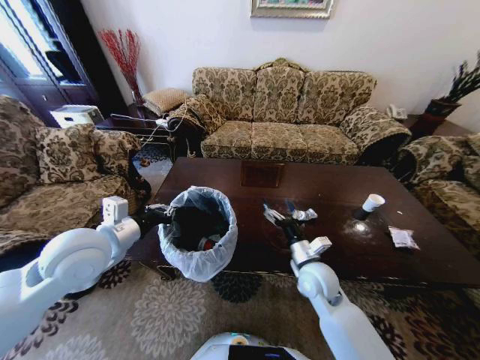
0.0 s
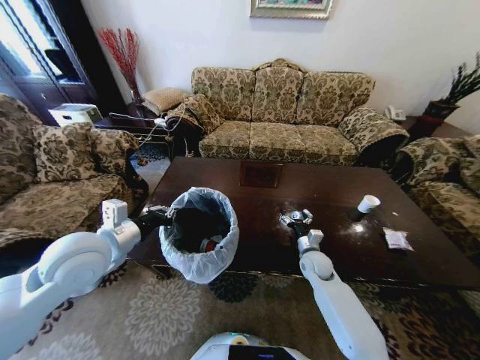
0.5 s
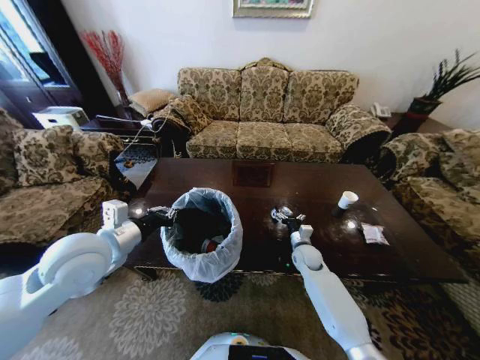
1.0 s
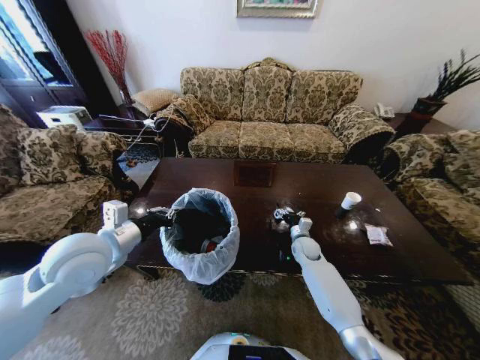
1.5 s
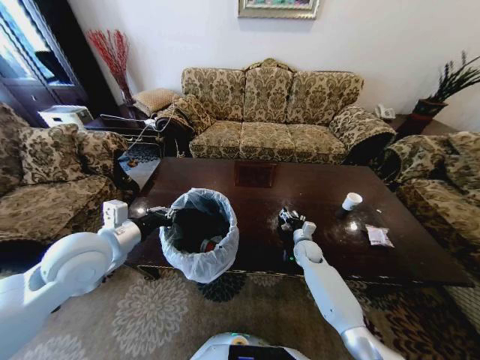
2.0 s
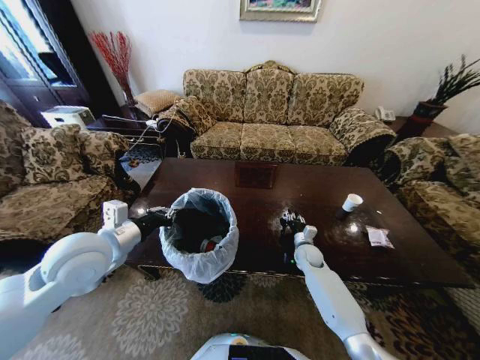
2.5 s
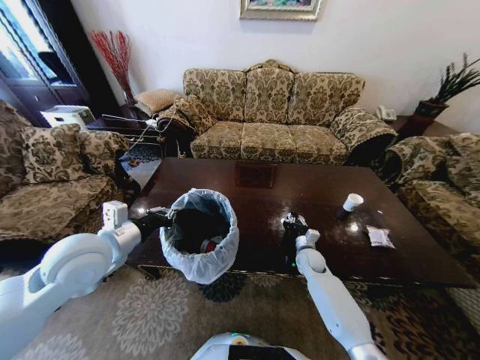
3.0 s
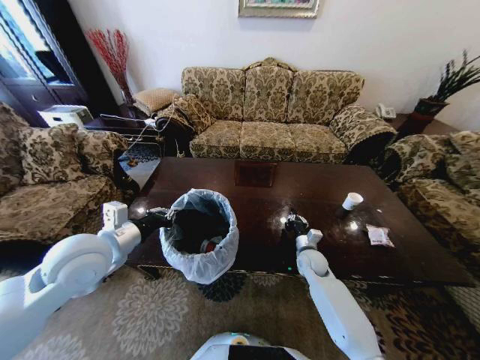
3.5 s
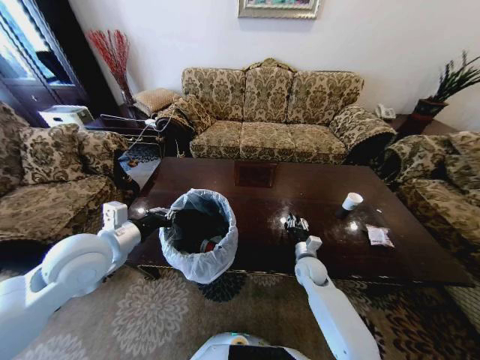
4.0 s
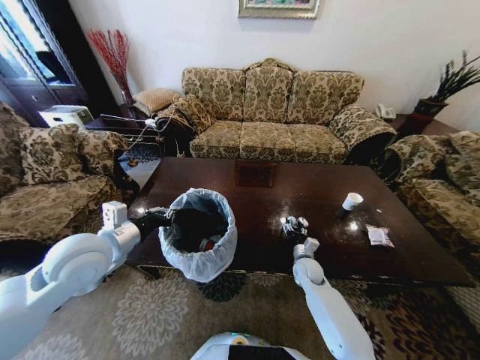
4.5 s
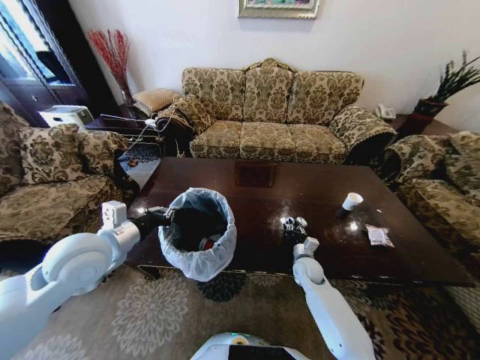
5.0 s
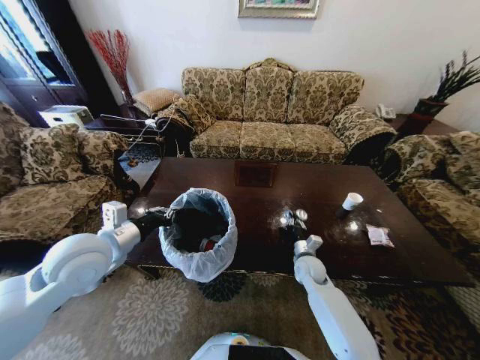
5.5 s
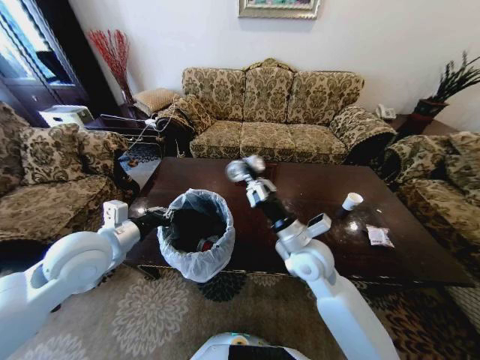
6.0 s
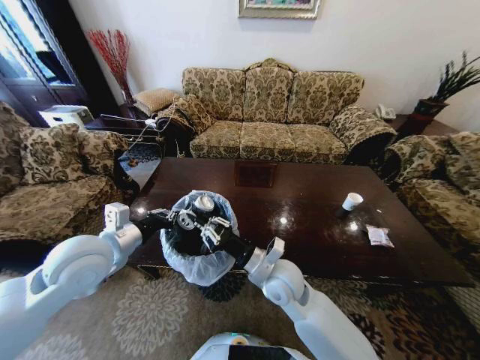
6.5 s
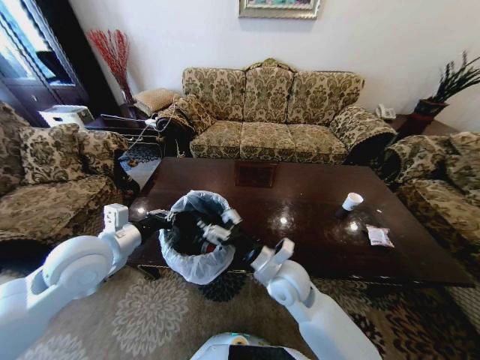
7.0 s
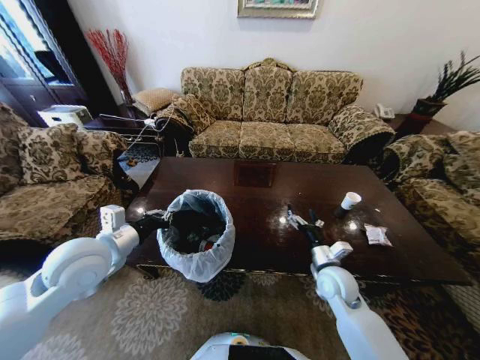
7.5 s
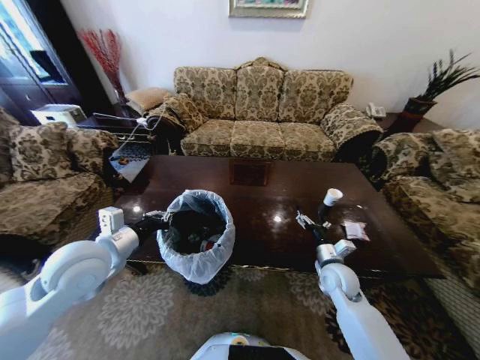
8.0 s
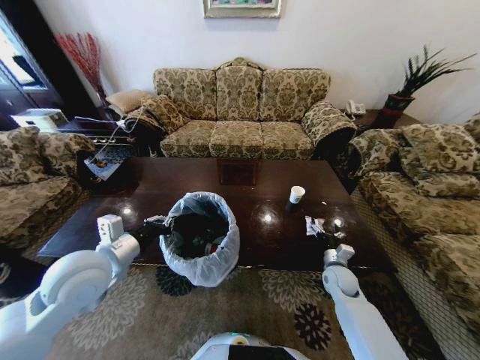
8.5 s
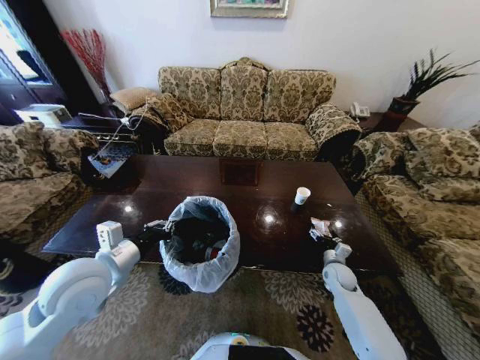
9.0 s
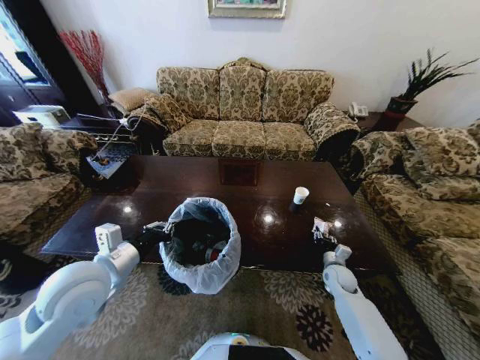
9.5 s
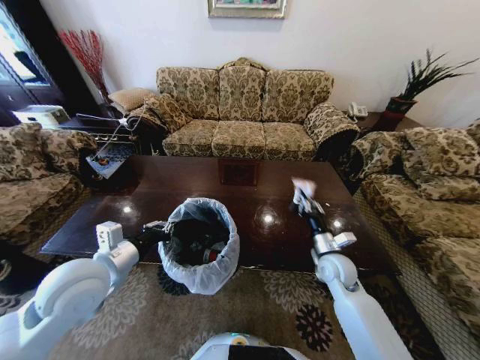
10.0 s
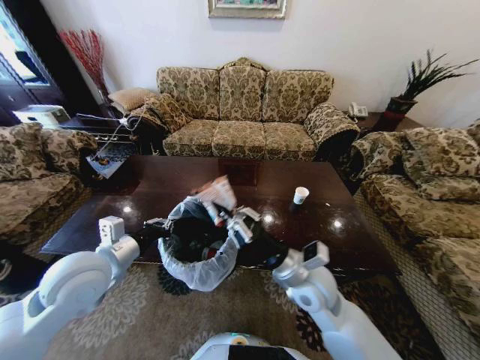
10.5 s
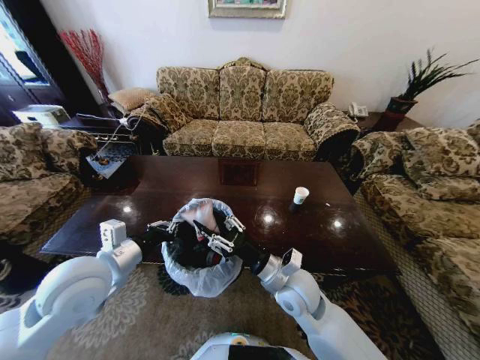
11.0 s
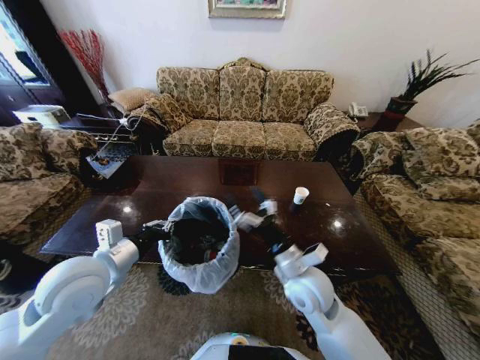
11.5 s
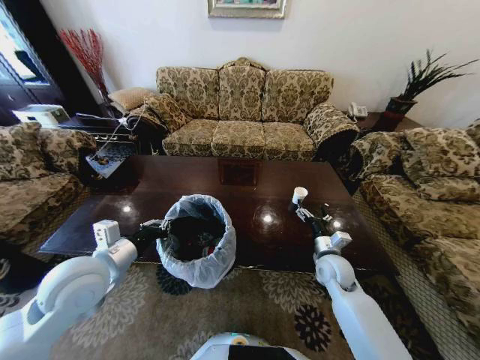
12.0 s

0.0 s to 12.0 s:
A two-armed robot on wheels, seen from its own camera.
Task of the whole recording: Move to the front of the table and place the trash on the table into the trash bin.
0.0 to 2.0 s: The right gripper is displaced forward and downward by roughly 20 cm.
2.0 to 4.0 s: The right gripper shifts some 10 cm backward, and closes.
4.0 to 6.0 s: The right gripper is displaced upward by some 20 cm, and opens, then closes once more.
6.0 to 8.0 s: The right gripper is displaced downward and to the right by about 20 cm, and opens up.
8.0 to 10.0 s: The right gripper reaches some 10 cm downward, then returns, and closes its fingers.
10.0 to 12.0 s: The right gripper reaches about 15 cm to the left, then returns, and opens its fingers.

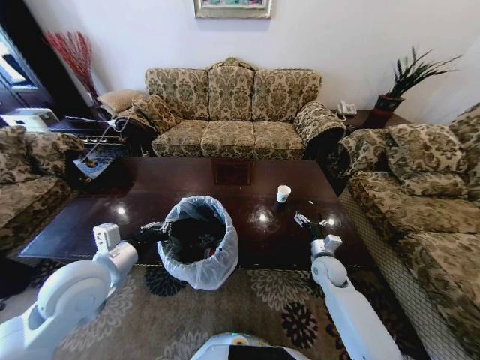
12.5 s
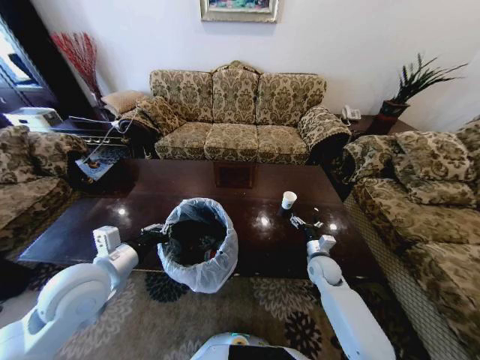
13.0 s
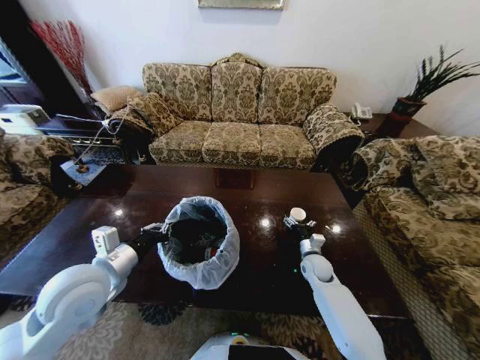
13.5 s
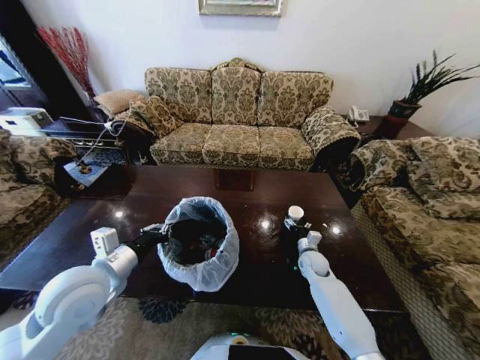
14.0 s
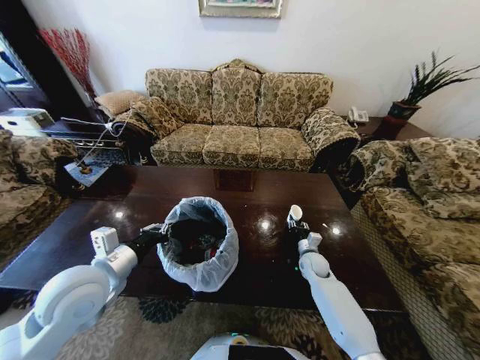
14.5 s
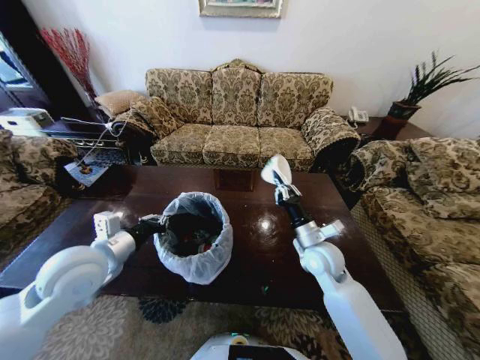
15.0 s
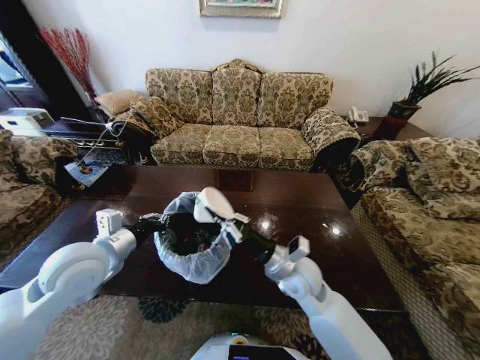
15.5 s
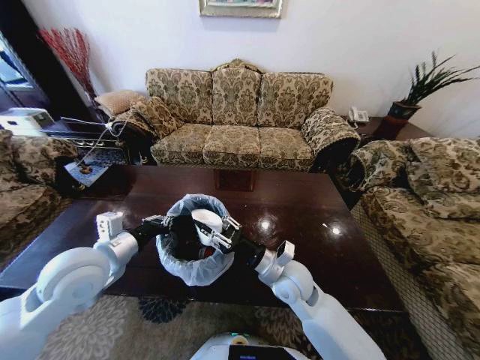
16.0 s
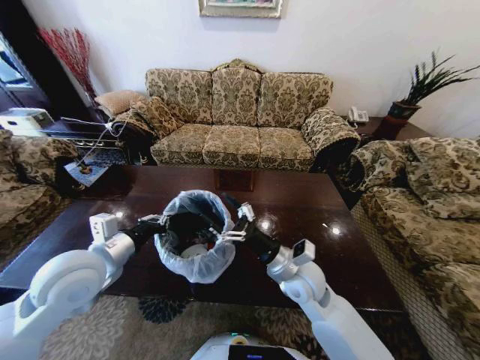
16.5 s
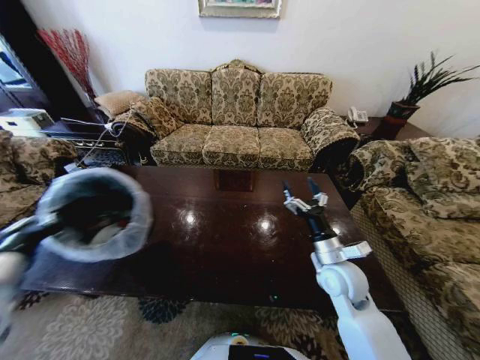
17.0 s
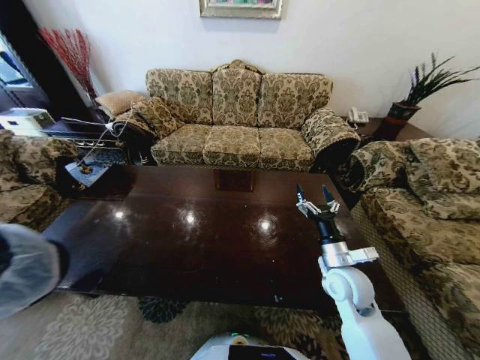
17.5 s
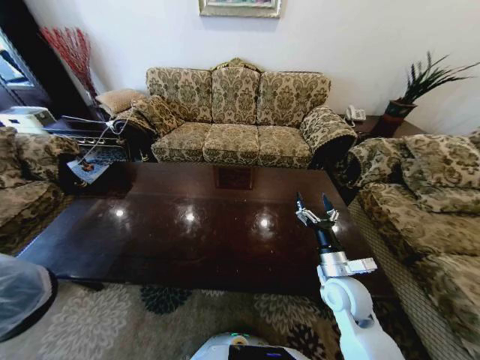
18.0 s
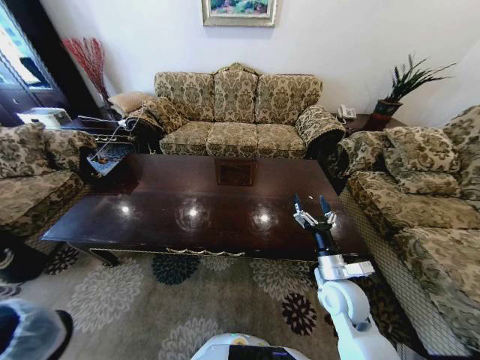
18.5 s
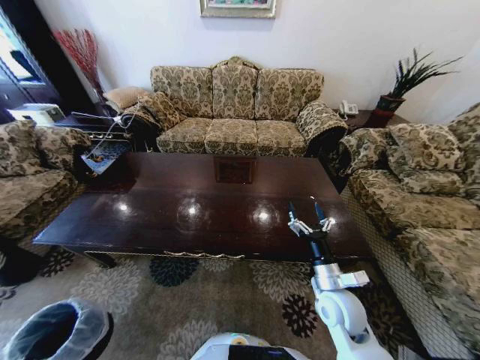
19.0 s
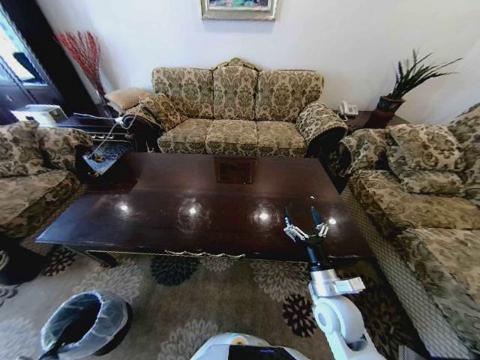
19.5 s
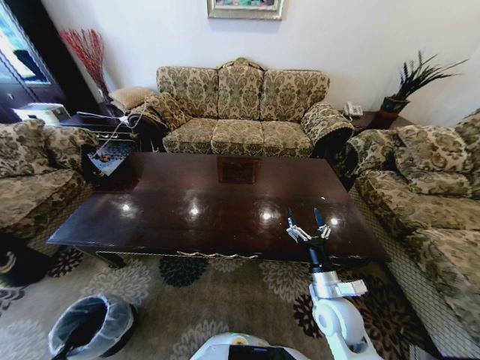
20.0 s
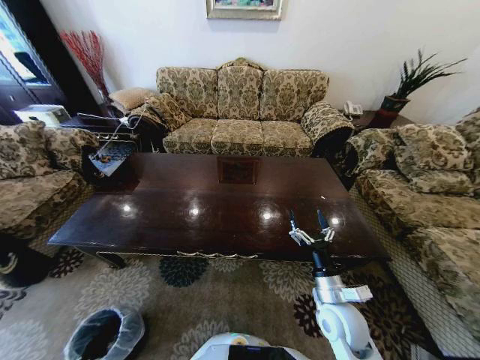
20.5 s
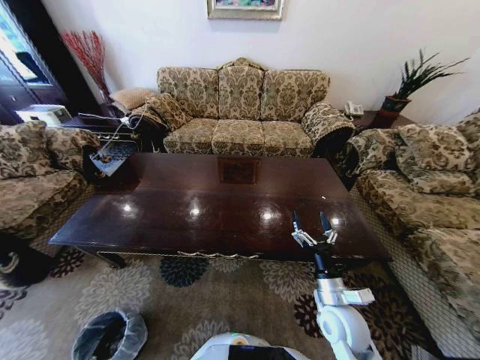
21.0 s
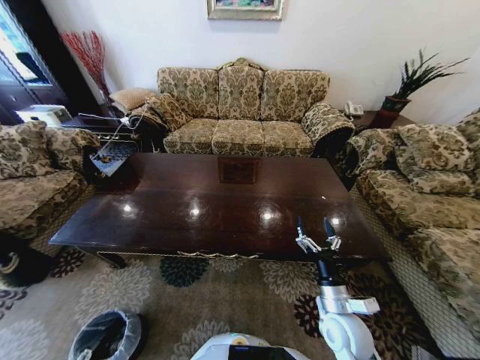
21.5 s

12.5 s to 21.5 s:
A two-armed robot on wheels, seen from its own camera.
Task of the whole recording: Move to the front of the table and place the trash on the table into the trash bin.
12.5 to 14.5 s: The right gripper ends up some 5 cm from where it was, and closes its fingers.
14.5 to 17.0 s: The right gripper goes some 20 cm upward and backward, and opens. Meanwhile the left gripper goes some 10 cm to the left and backward.
17.0 to 19.5 s: The left gripper heads downward and to the left, covering about 50 cm; the right gripper travels backward and downward by roughly 10 cm.
19.5 to 21.5 s: The left gripper goes about 10 cm to the right and backward, and opens its fingers.

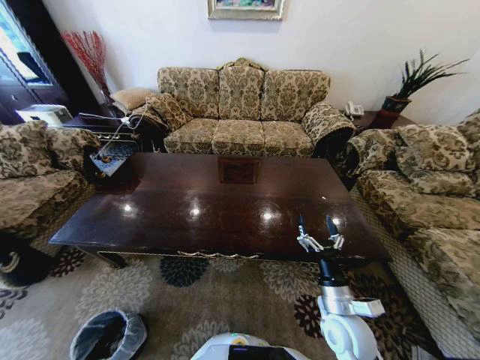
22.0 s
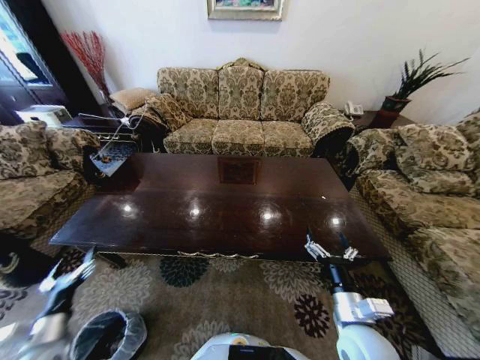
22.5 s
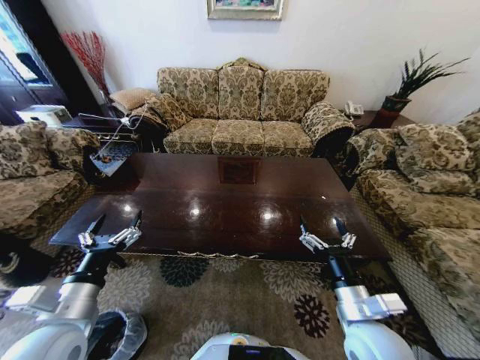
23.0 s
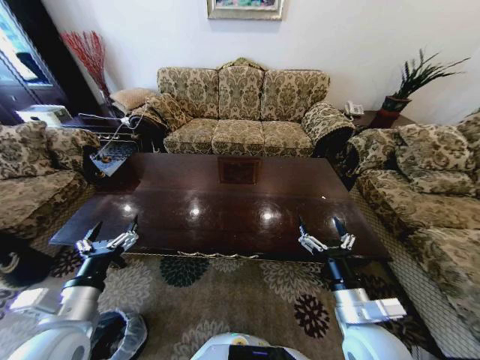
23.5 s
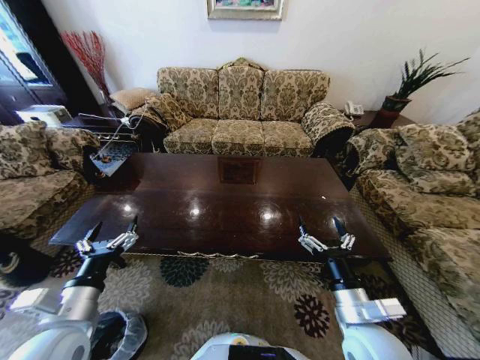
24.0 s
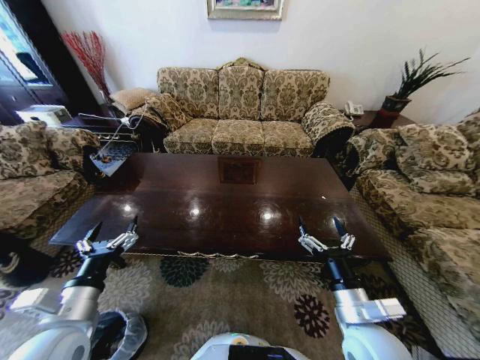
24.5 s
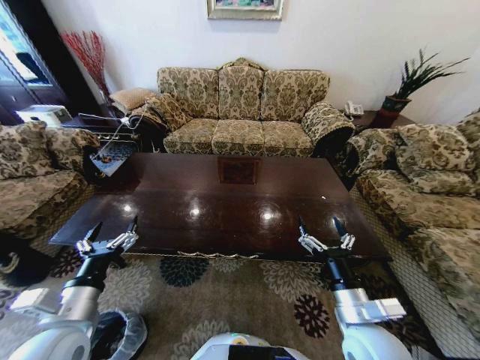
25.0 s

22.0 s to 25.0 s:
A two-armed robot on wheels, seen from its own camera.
Task of the whole recording: Move to the front of the table and place the trash on the table into the trash bin.
22.0 to 23.5 s: The left gripper is displaced upward and to the right by roughly 40 cm, while the right gripper is displaced upward by some 5 cm.
23.5 to 25.0 s: The two grippers keep their place.

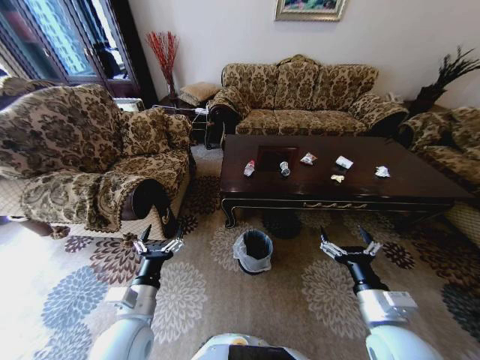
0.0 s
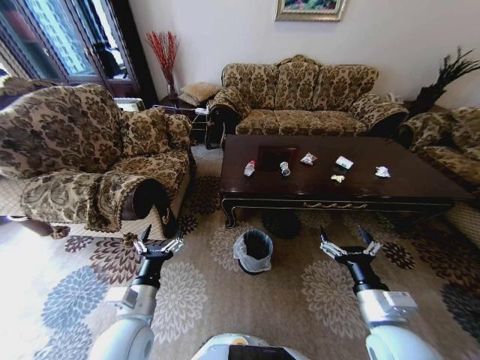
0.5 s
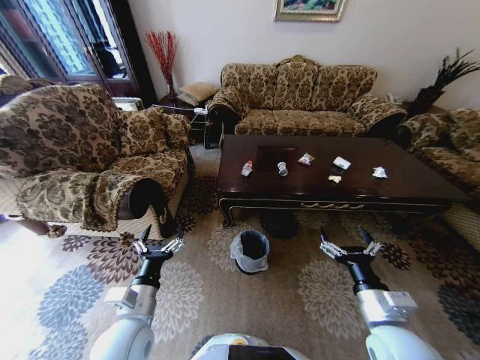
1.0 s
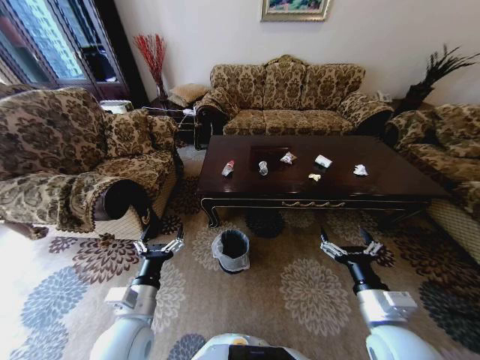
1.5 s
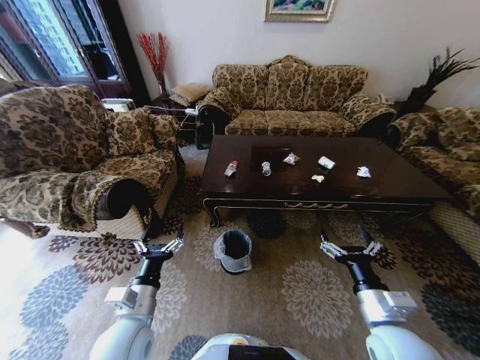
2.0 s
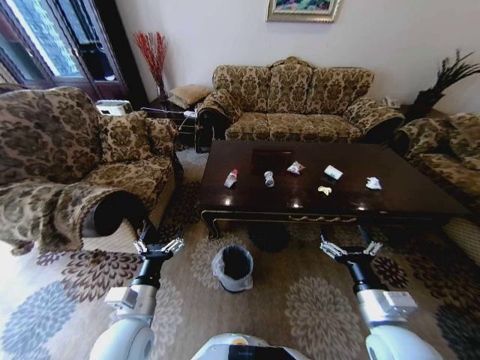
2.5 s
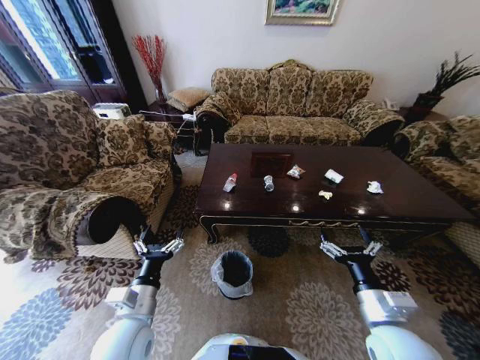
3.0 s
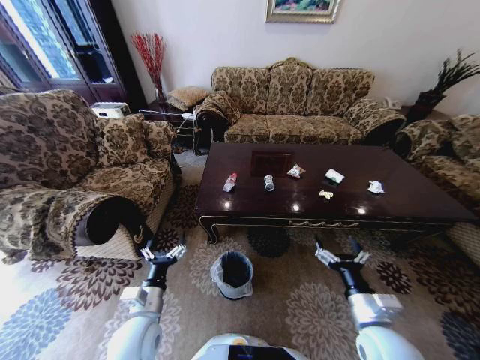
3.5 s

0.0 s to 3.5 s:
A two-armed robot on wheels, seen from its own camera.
Task of the whole recording: Move to the front of the table and place the trash on the table into the trash bin.
2.0 to 3.5 s: The left gripper moves downward, roughly 5 cm.
